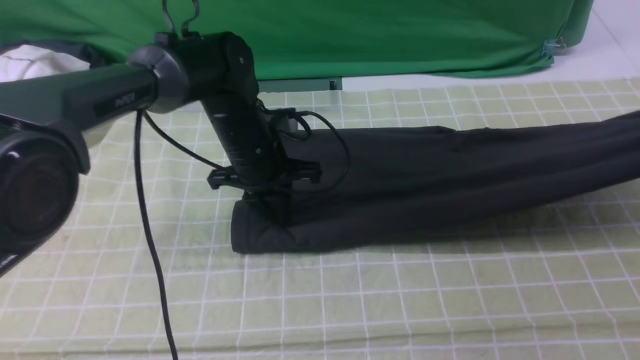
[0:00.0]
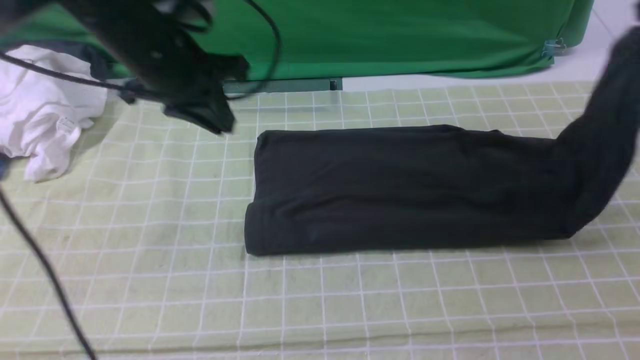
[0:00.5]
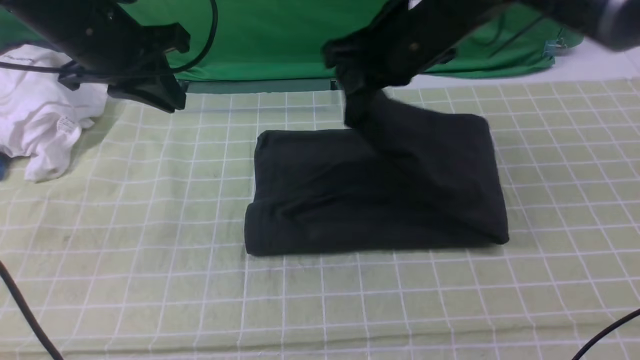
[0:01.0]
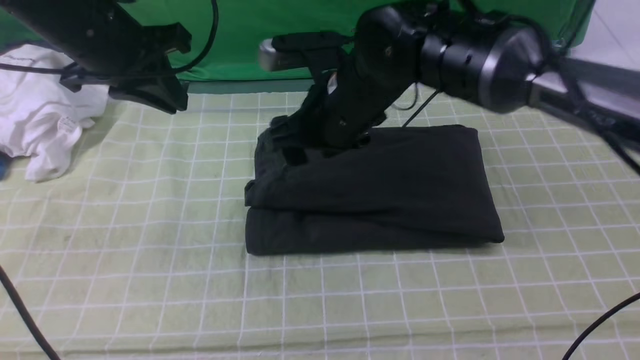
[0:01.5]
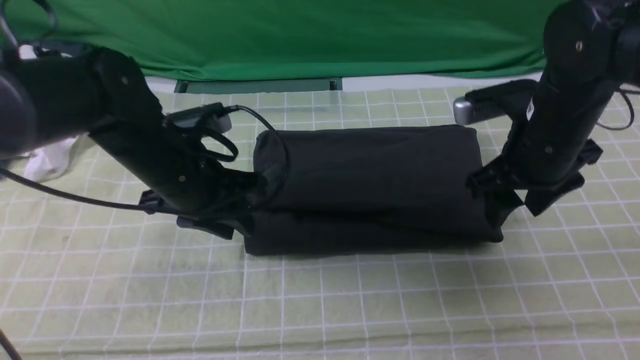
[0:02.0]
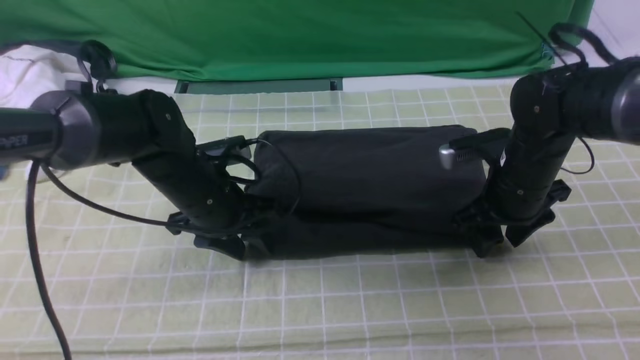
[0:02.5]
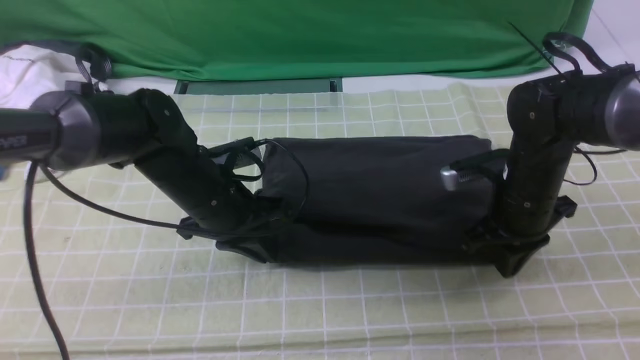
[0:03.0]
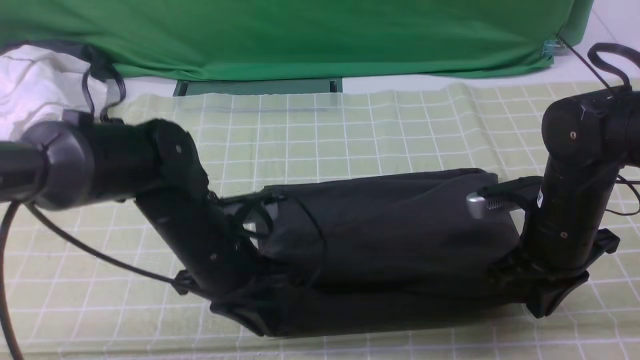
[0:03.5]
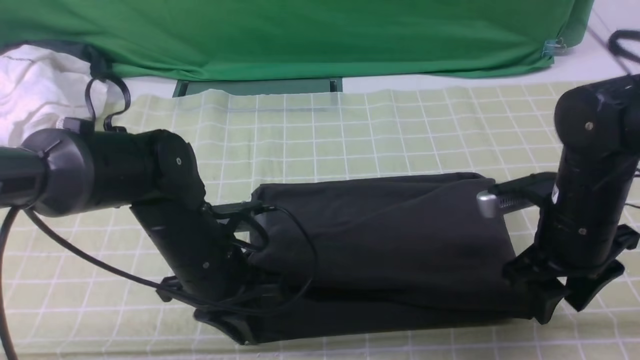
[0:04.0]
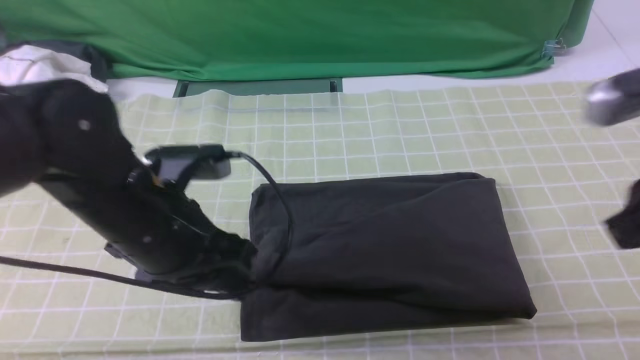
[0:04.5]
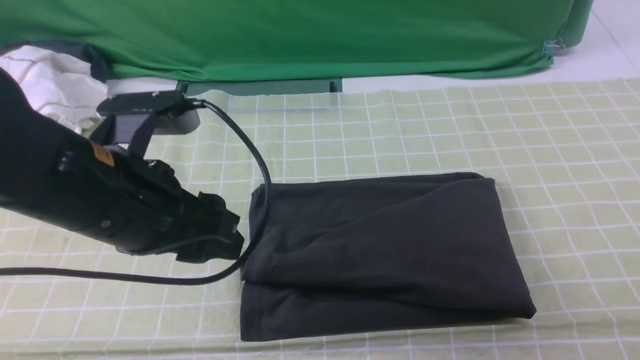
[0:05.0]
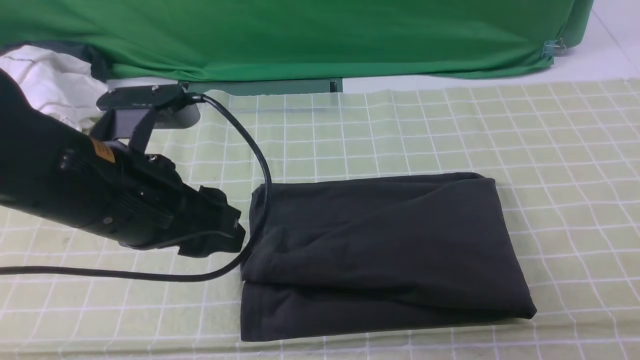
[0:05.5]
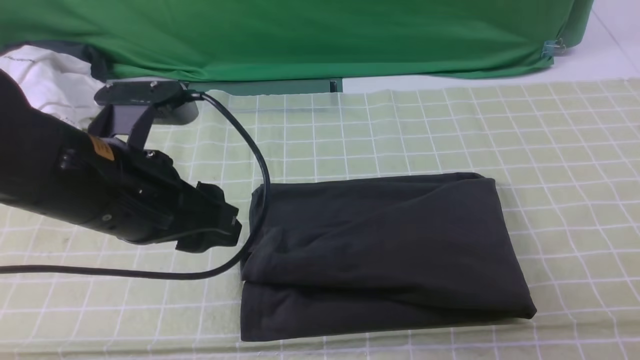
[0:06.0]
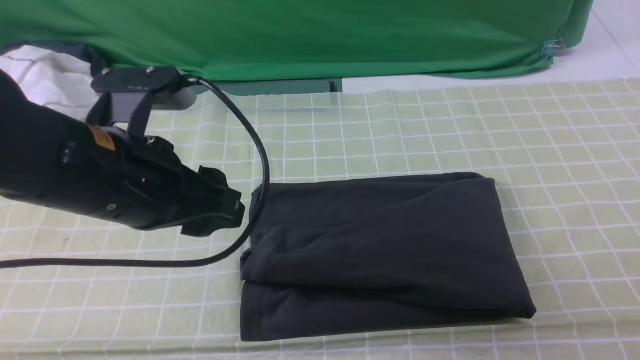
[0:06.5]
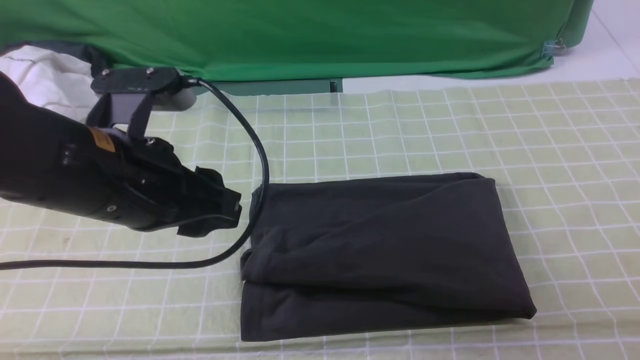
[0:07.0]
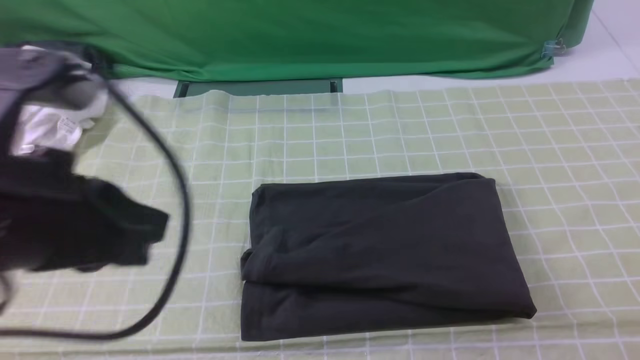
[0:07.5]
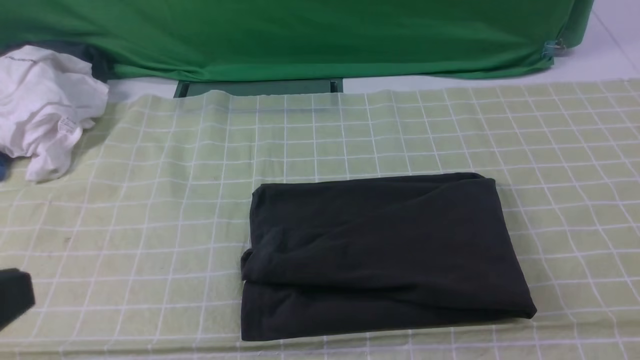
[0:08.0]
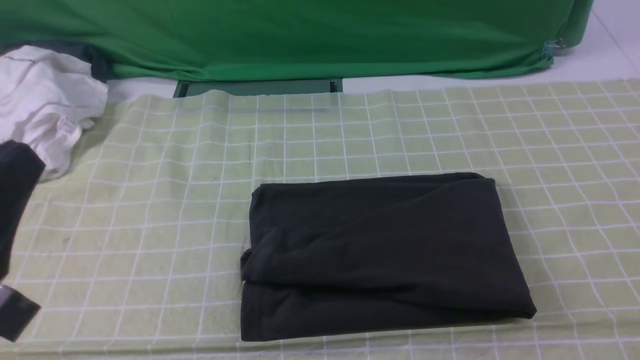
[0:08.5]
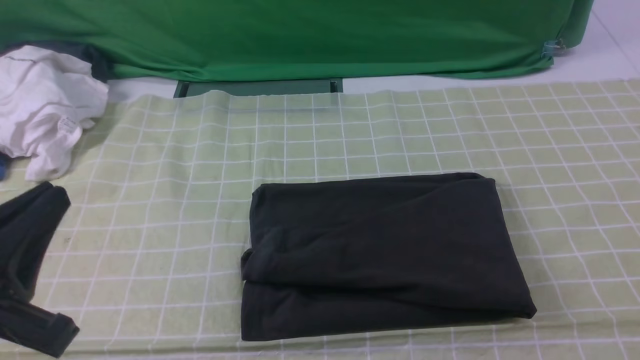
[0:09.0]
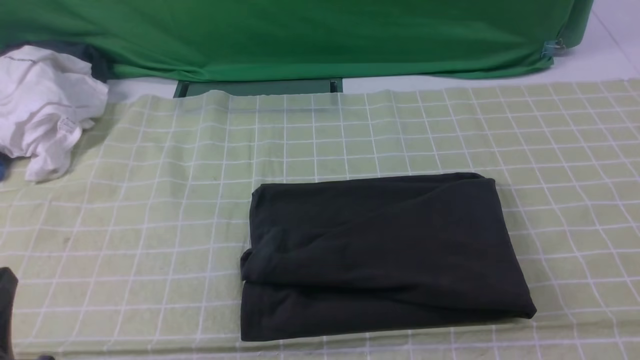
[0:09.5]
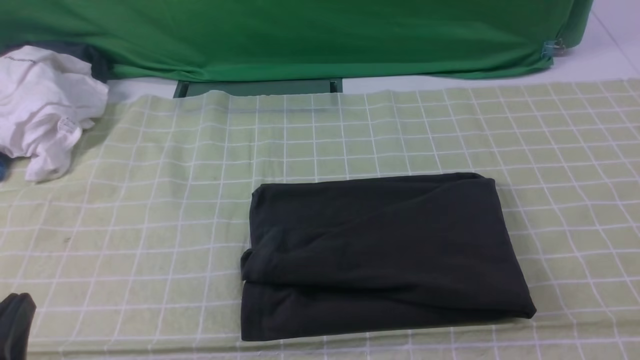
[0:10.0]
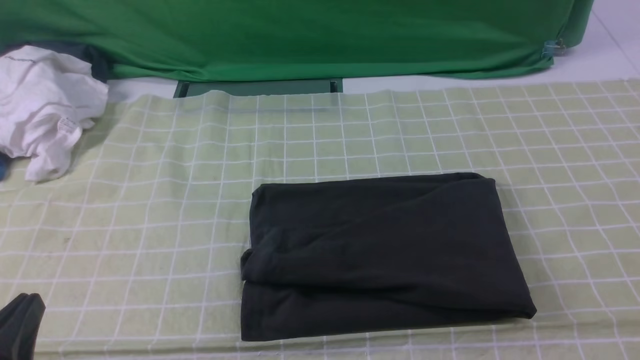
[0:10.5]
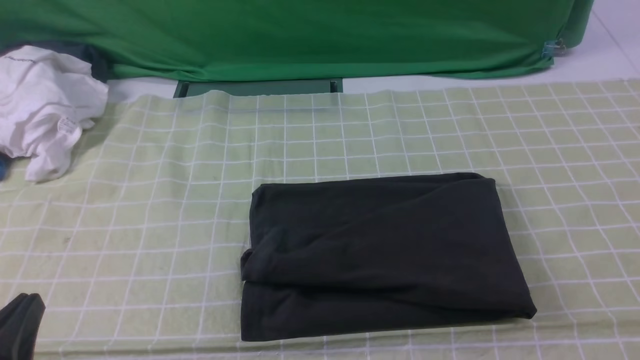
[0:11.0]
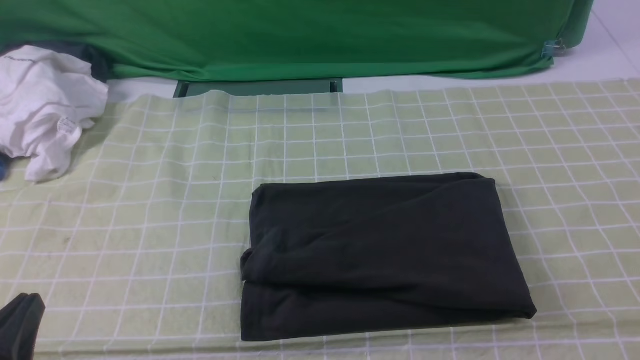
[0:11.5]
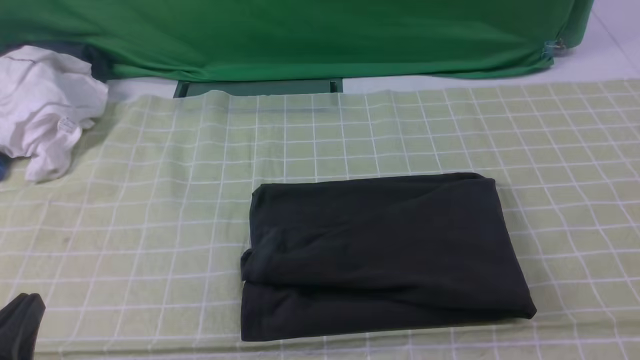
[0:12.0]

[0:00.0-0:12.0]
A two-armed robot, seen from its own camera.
Step, 0:00.0 to 0:01.5: use the right arm to drag the right edge of the fabric to the left and folds it over the left edge.
0:00.0 to 0:02.0: The left gripper goes roughly 10 cm backward and to the left, travels upward and back again, roughly 15 cm each way, and opens. The right gripper is displaced to the left by some 25 cm, and opens its fingers.
0:02.0 to 0:04.0: The two grippers go roughly 5 cm backward. The right gripper closes, then opens again.
0:04.0 to 0:06.0: The right gripper travels backward, upward and to the right by roughly 25 cm, and closes; the left gripper moves upward, approximately 15 cm, and opens its fingers.
0:06.0 to 0:08.0: The left gripper heads backward, covering about 15 cm, and closes. The right gripper goes approximately 10 cm downward.
0:08.0 to 0:10.0: The left gripper goes some 15 cm downward.
0:10.0 to 0:12.0: Both grippers stay about where they are.

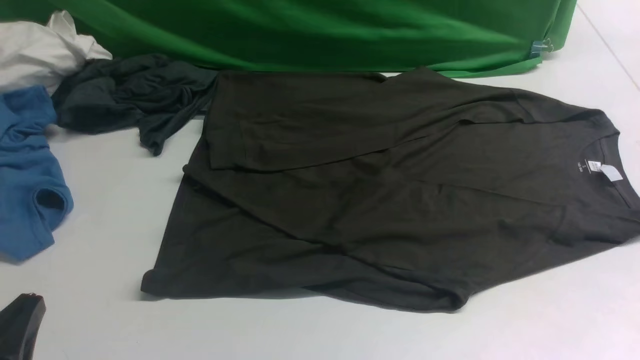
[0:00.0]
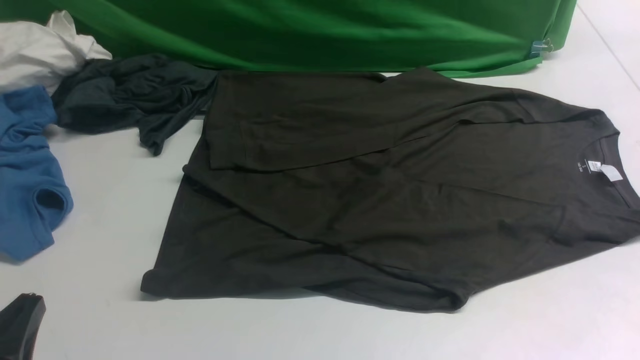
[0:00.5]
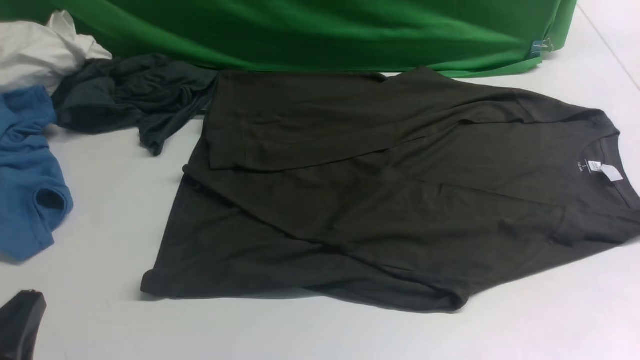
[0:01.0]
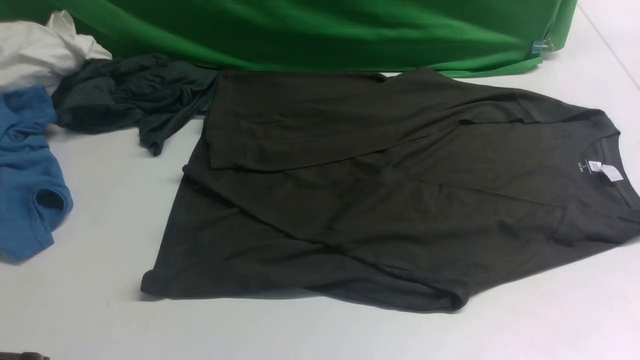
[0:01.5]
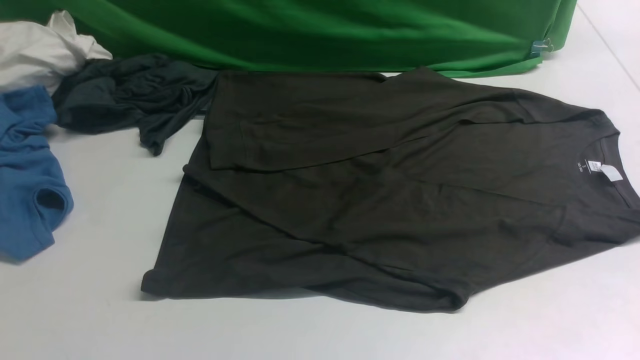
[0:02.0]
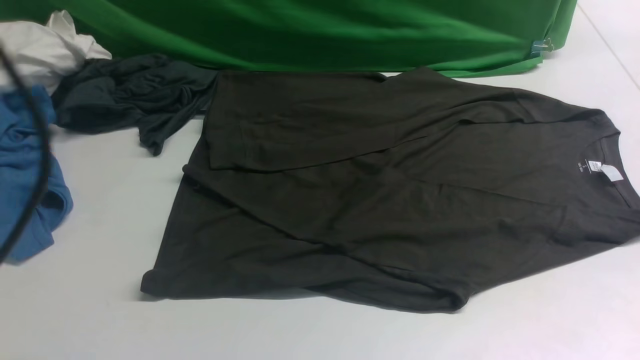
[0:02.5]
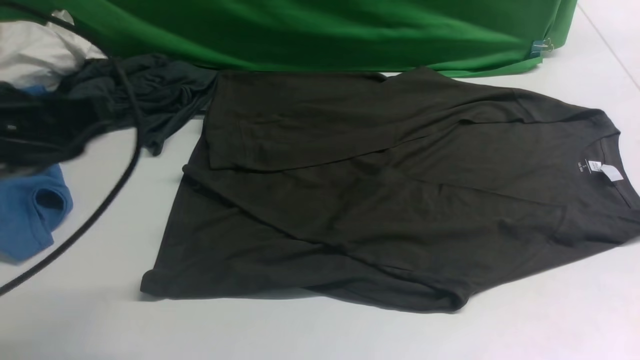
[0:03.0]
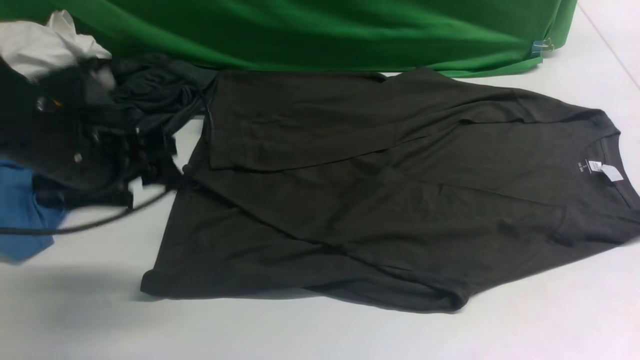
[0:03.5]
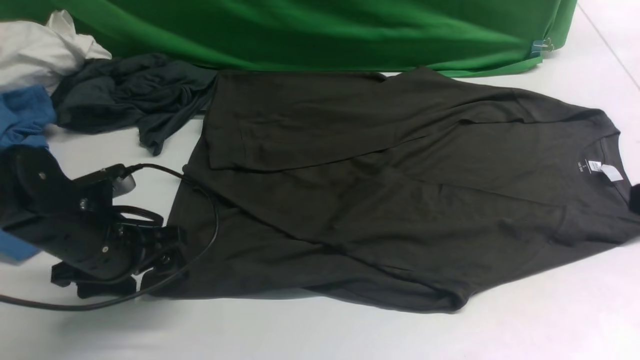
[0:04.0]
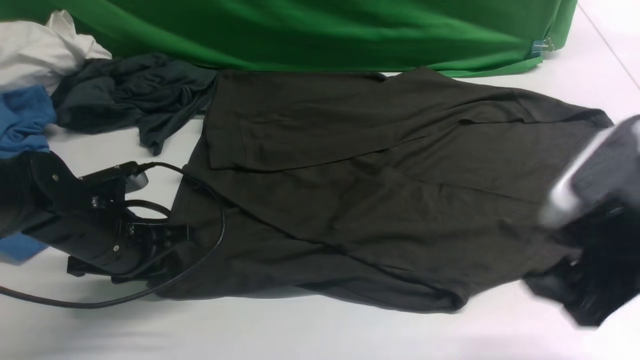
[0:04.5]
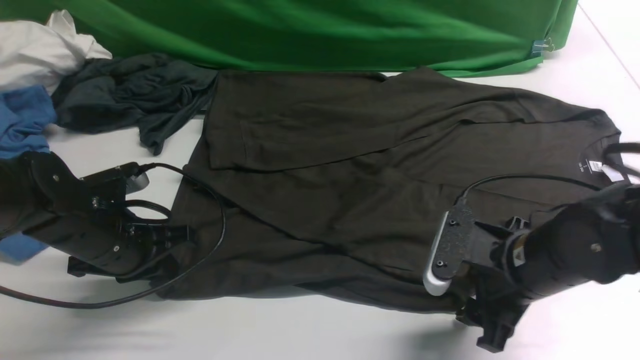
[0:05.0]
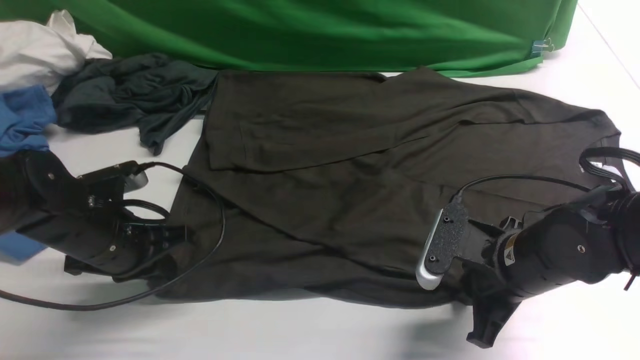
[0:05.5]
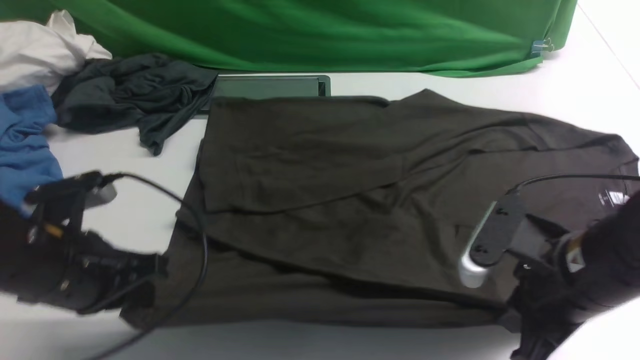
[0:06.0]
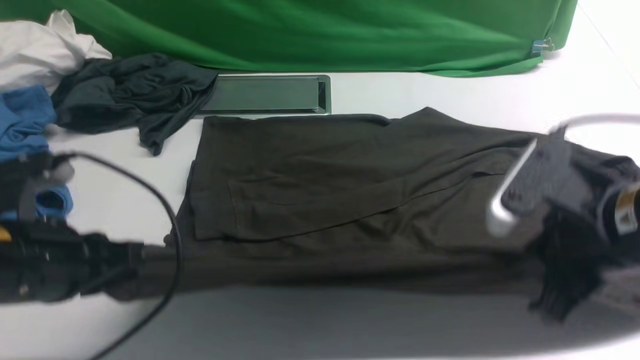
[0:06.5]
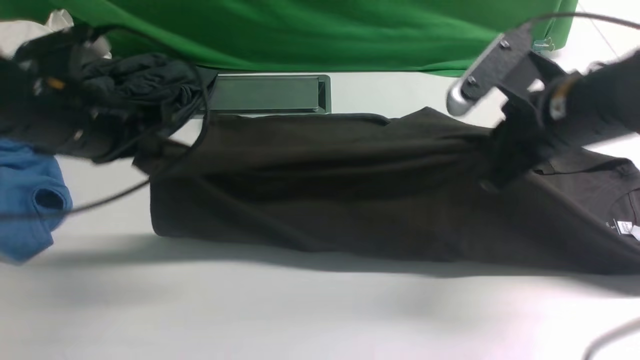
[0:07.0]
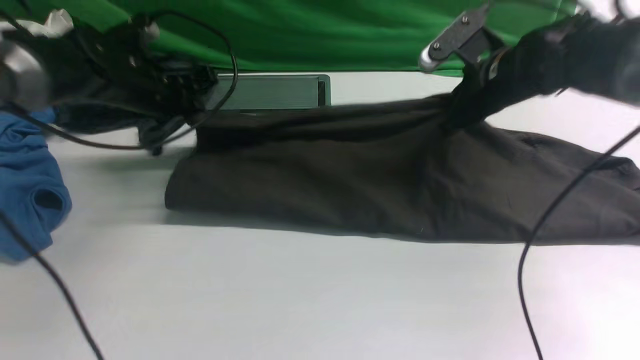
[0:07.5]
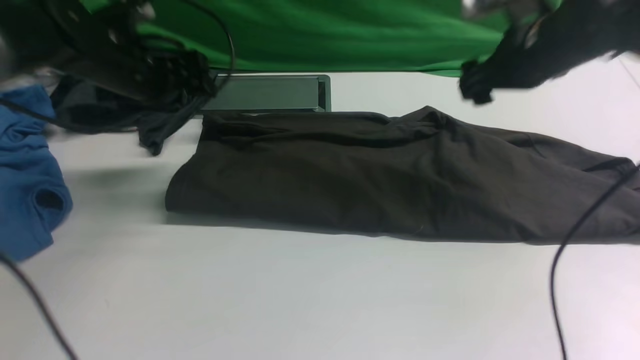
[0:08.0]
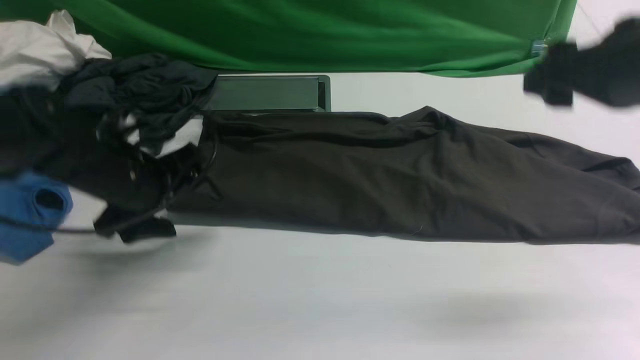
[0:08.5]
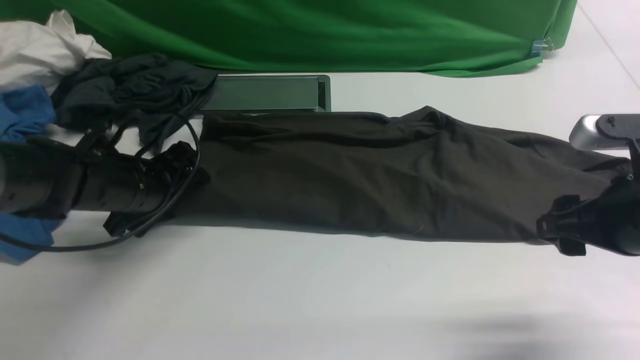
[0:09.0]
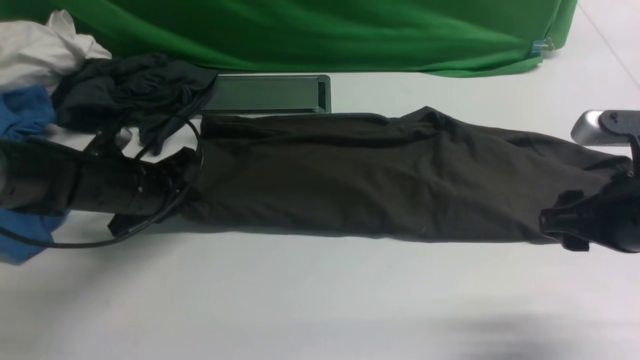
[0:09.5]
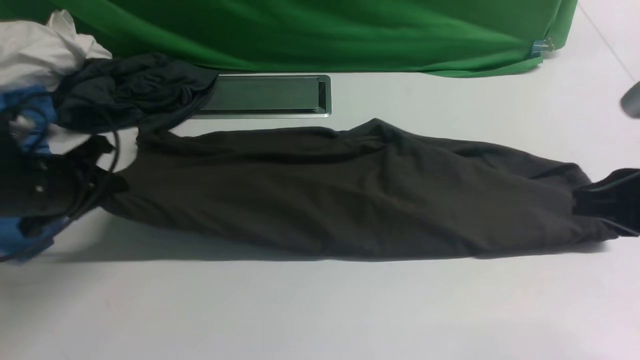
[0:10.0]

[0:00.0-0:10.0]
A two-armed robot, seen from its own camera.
Step, 0:00.0 to 0:06.0: use both arms simultaneously to clamp the lower edge of the clothing fabric.
Step, 0:06.5 to 0:08.0: use both arms to drag the lower edge of the fabric forward and fold it over the upper edge.
Step, 0:08.5 to 0:10.0: Hold the left edge of the fabric with your left arm.
0:00.0 to 0:02.0: The left gripper travels upward by some 15 cm.
0:02.0 to 0:04.0: The left gripper moves forward and downward, about 30 cm, and opens up.
0:04.0 to 0:06.0: The left gripper shifts some 5 cm backward, and closes; the right gripper travels downward and to the left by some 15 cm, and closes its fingers.
0:06.0 to 0:08.0: The grippers both shift forward by approximately 20 cm. The left gripper opens up. Meanwhile the right gripper opens its fingers.
0:08.0 to 0:10.0: The left gripper is displaced backward, to the left and downward by roughly 15 cm, and closes up. The right gripper heads backward, covering some 20 cm, and closes up.
